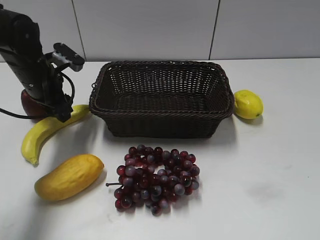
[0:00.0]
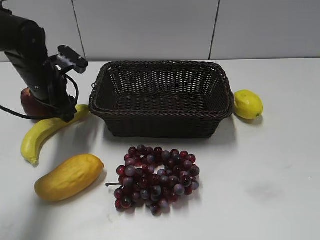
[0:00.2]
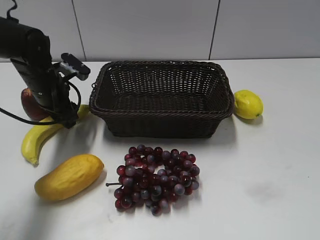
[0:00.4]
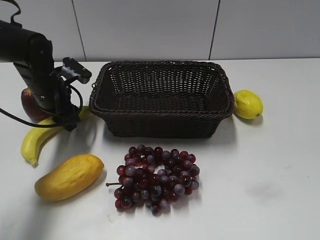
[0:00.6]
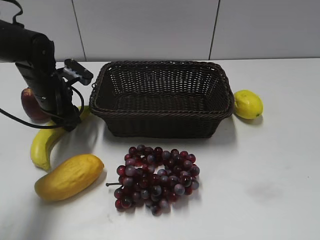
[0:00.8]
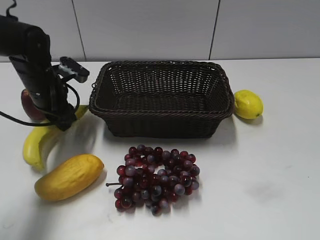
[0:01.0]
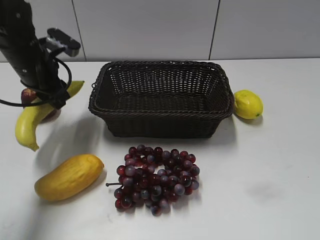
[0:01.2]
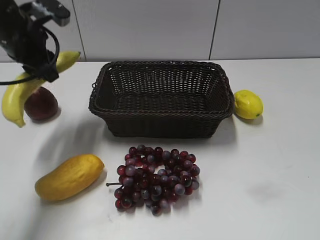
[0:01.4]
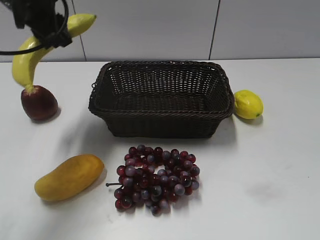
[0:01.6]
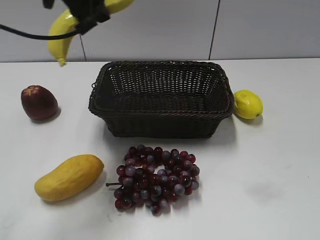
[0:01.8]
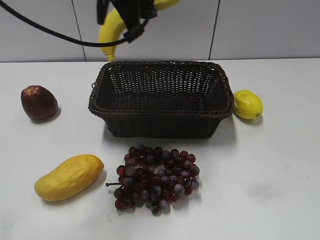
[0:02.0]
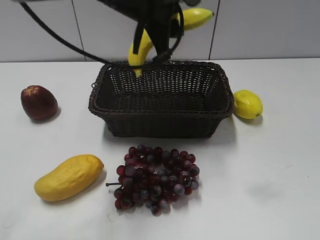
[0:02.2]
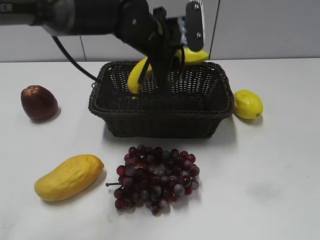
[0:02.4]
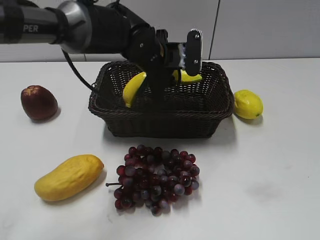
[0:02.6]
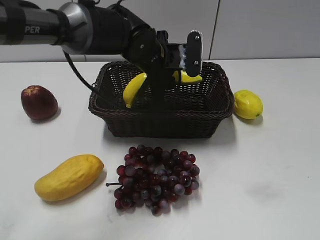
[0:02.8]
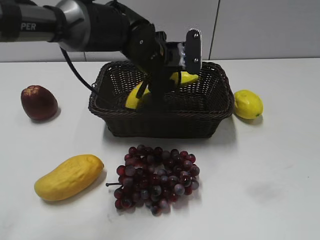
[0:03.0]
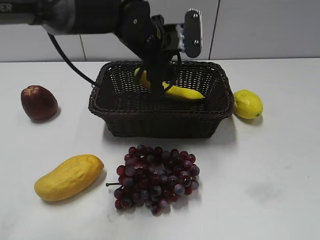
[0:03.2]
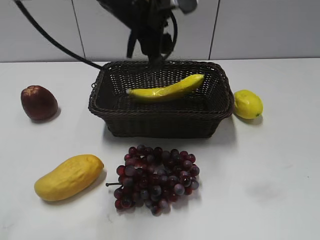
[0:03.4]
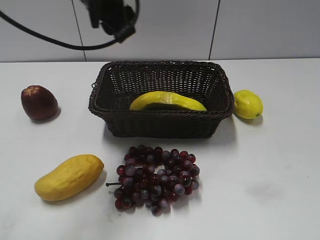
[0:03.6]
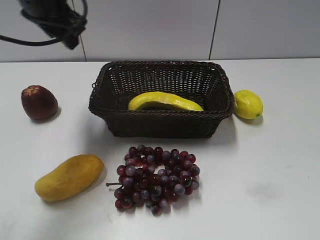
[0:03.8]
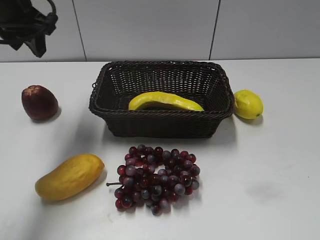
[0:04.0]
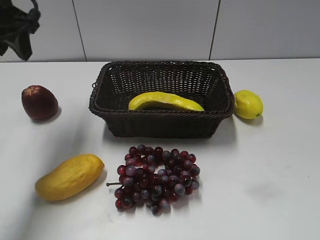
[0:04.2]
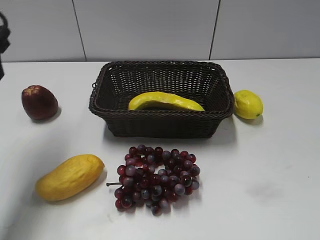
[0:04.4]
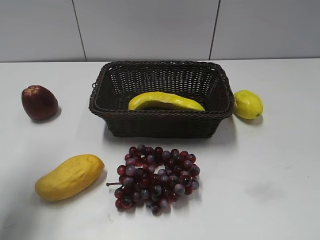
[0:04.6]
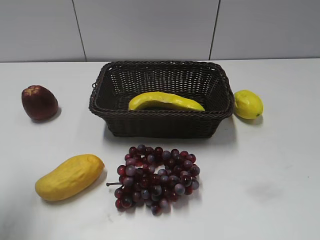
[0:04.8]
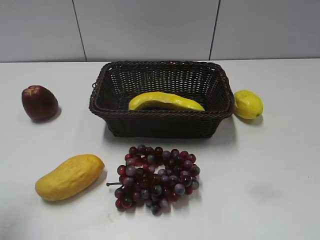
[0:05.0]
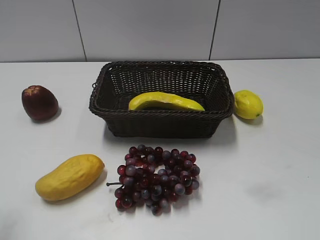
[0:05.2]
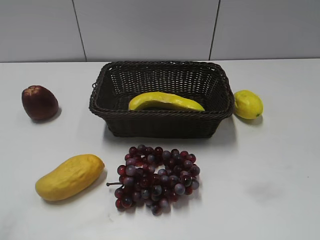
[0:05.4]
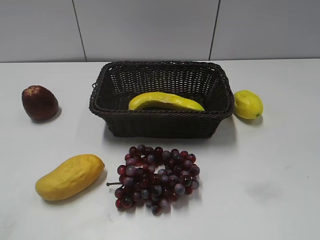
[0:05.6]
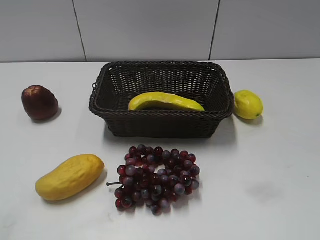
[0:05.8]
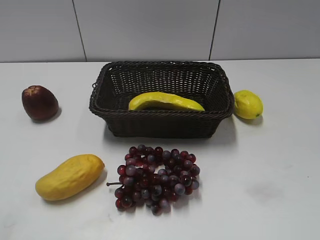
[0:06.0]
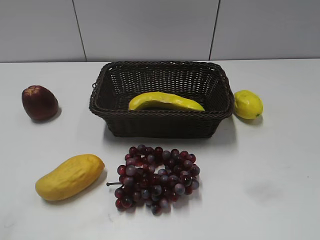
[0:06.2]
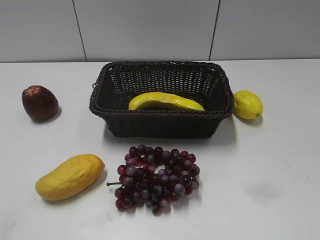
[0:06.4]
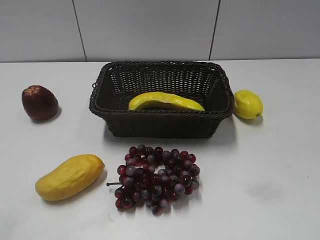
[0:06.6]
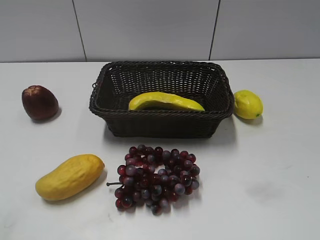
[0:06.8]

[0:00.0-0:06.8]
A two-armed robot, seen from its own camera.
Step, 0:00.8 to 0:03.2: Place the banana in the basket with left gripper.
0:00.0 to 0:01.4: The left gripper shifts roughly 10 cm upward, and closes its fingers.
0:01.4 to 0:02.8: The left gripper travels to the right and downward by some 20 cm.
0:02.8 to 0:04.0: The left gripper heads to the left and upward, covering some 25 cm, and opens up.
0:04.0 to 0:05.4: The left gripper heads backward, covering roughly 30 cm.
